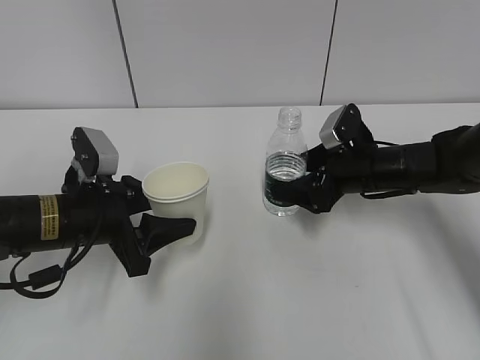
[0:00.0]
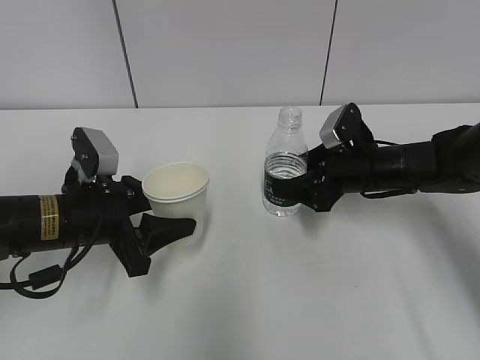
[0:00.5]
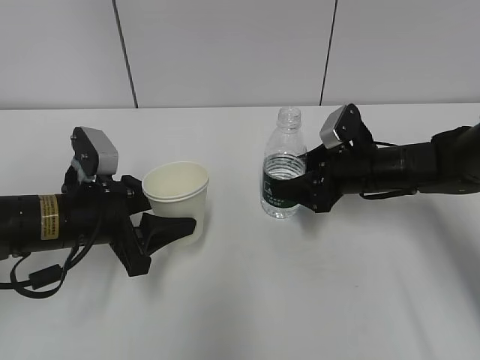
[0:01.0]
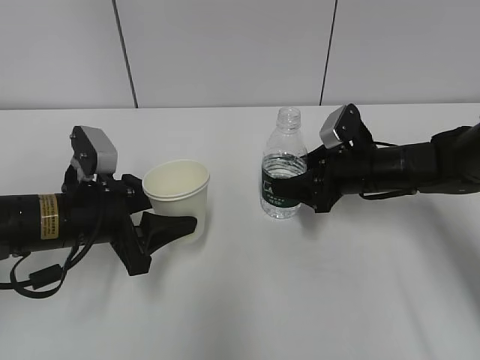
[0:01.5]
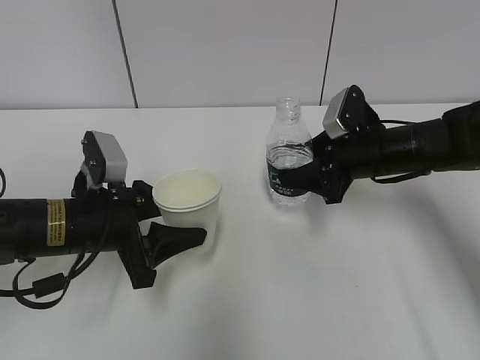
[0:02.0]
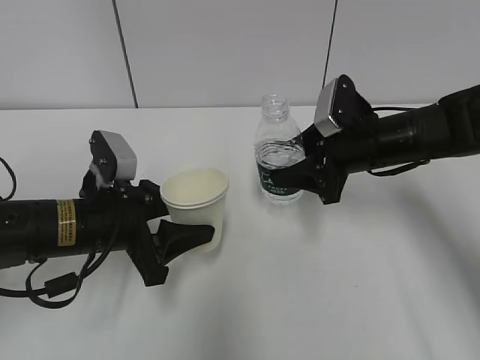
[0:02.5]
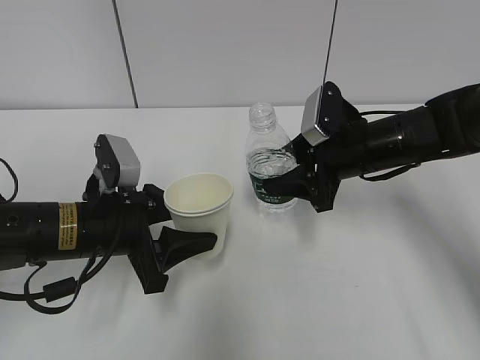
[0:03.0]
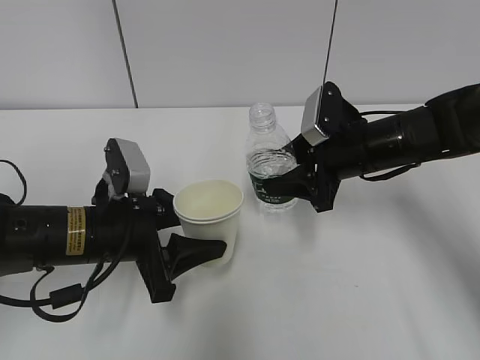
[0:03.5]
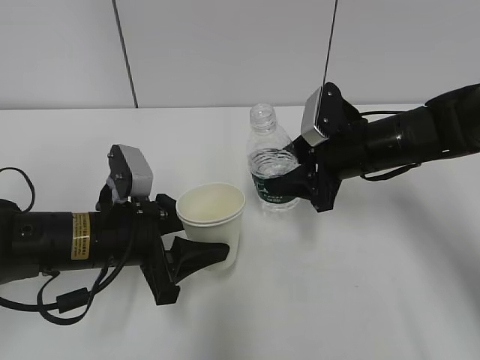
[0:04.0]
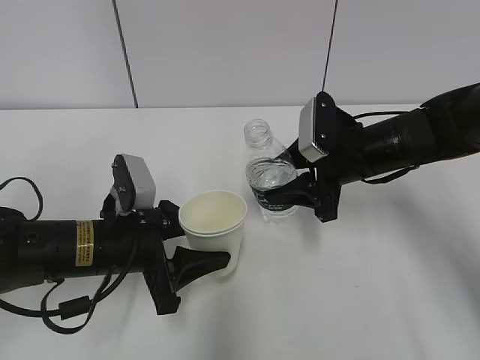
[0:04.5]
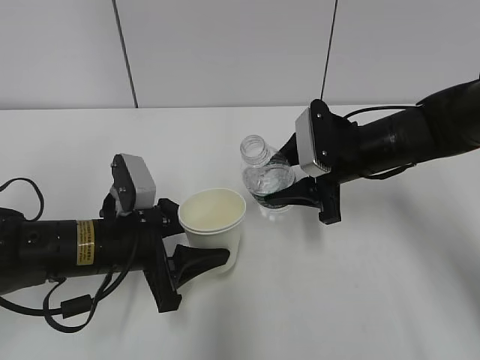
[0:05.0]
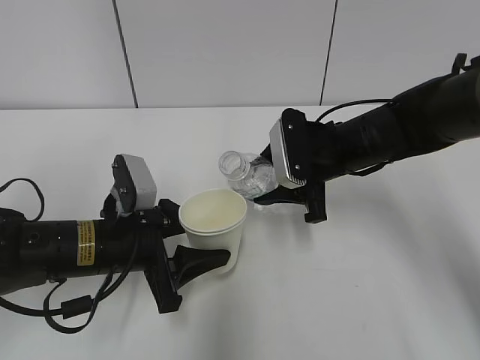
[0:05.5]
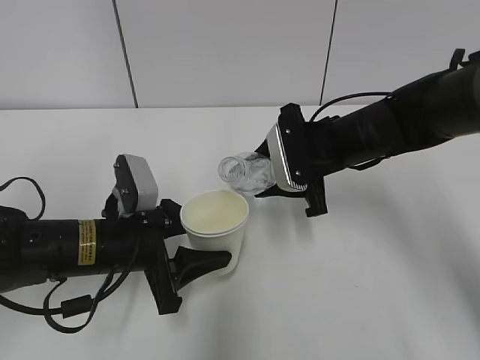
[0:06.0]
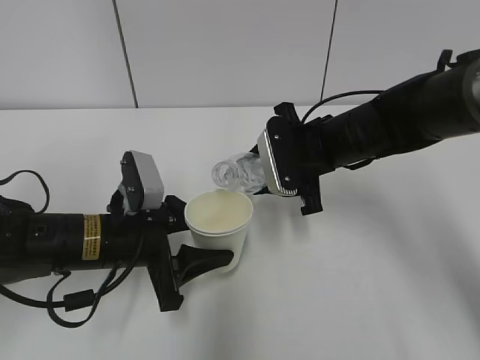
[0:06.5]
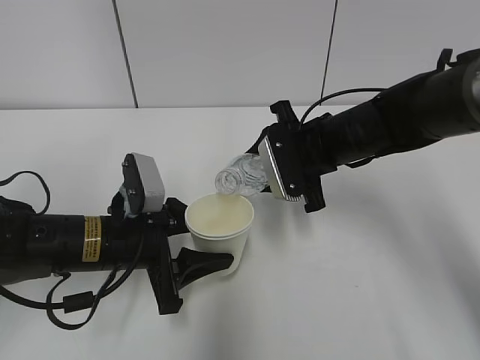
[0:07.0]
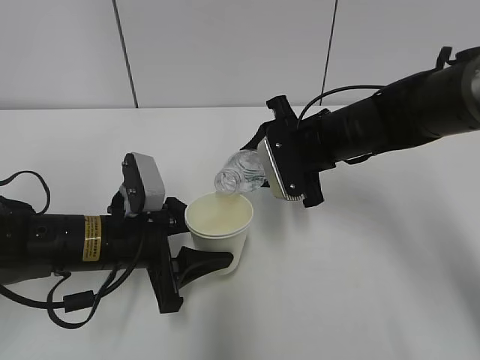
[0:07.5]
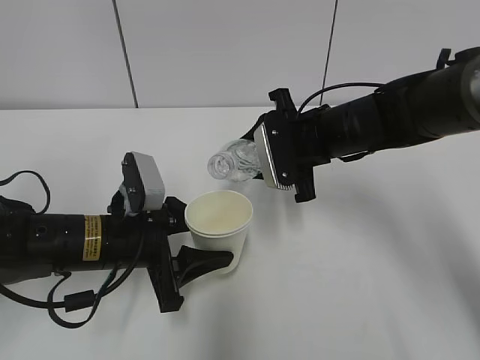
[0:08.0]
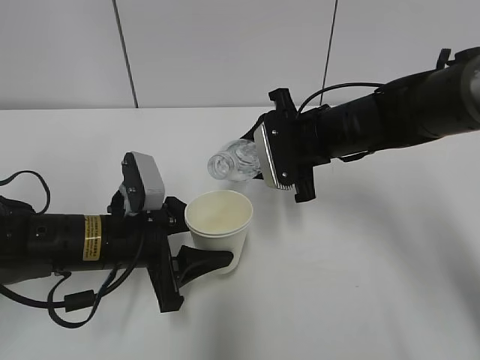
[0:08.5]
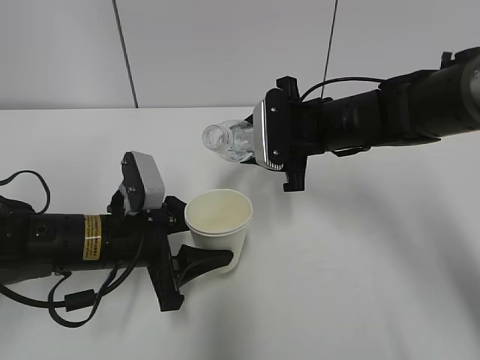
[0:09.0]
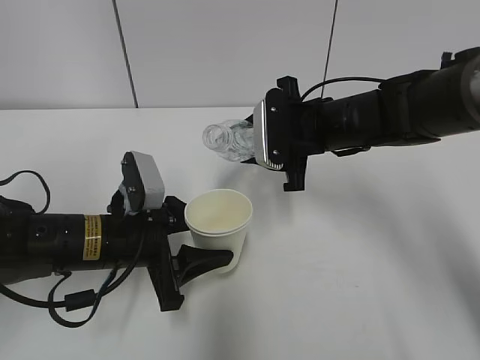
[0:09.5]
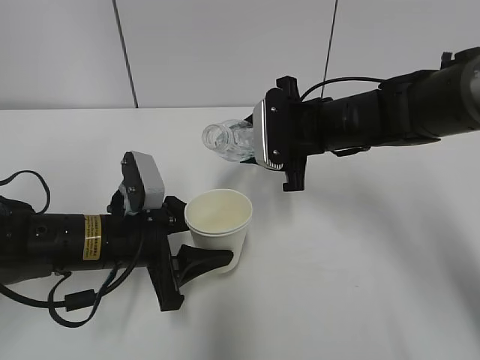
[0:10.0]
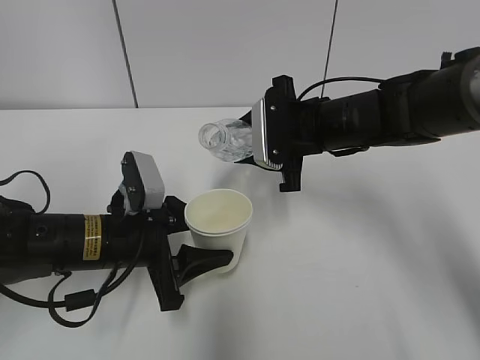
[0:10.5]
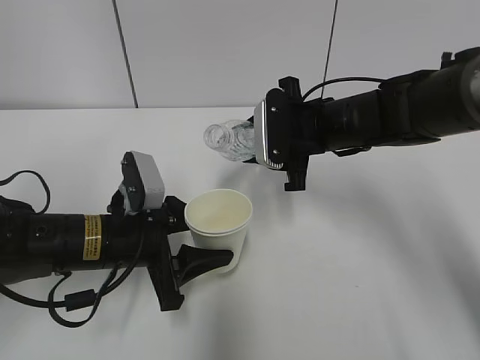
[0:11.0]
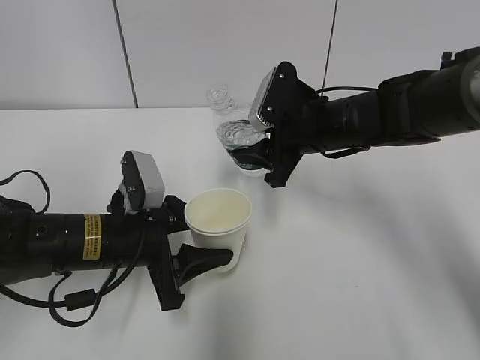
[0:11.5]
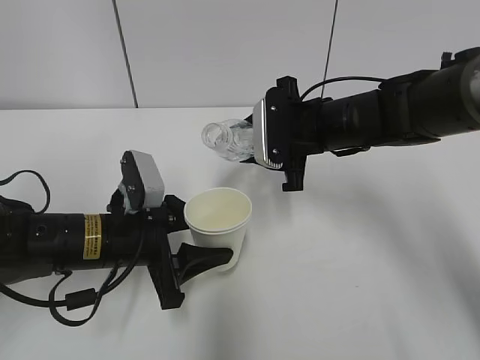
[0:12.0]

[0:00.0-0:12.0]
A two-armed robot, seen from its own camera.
0:00.0 to 0:02.0: The right gripper closes.
0:02.0 to 0:04.0: The grippers move only a little.
0:06.0 to 0:10.0: The grippers make only small movements.

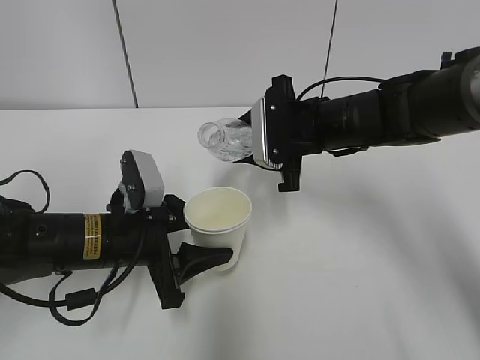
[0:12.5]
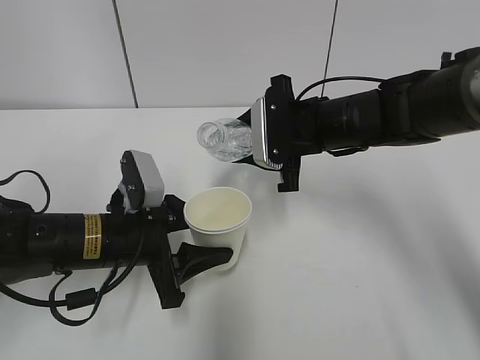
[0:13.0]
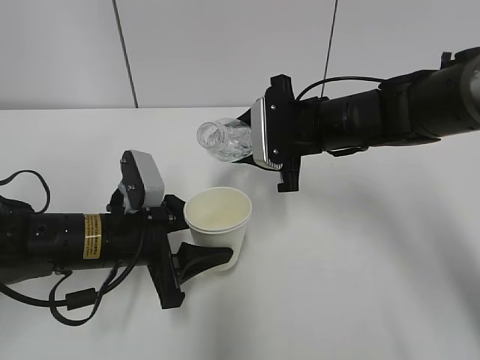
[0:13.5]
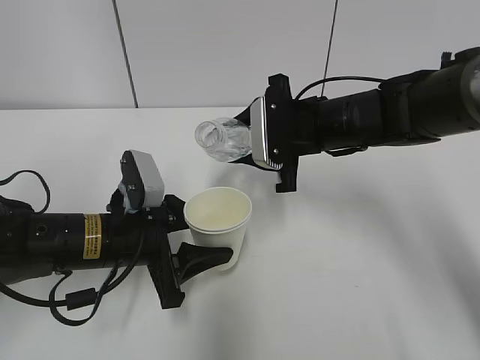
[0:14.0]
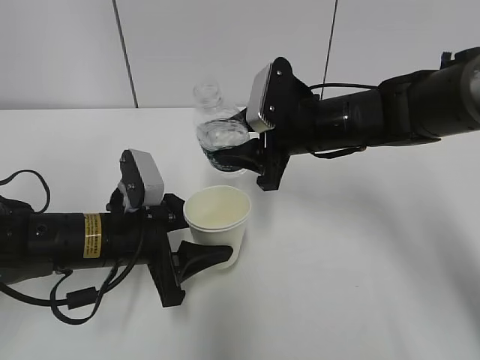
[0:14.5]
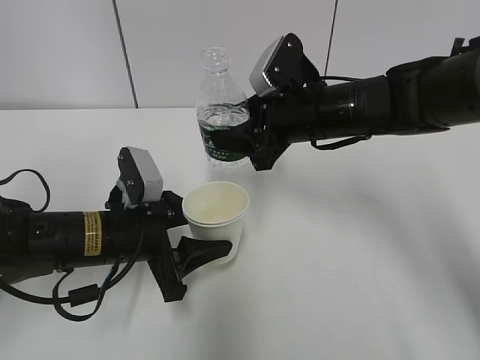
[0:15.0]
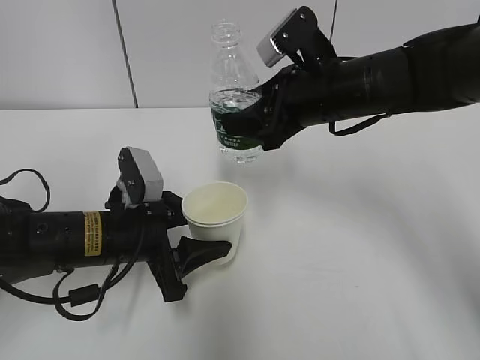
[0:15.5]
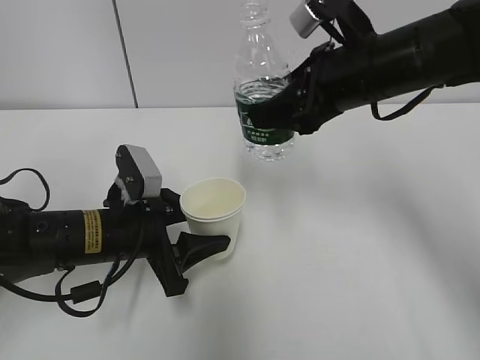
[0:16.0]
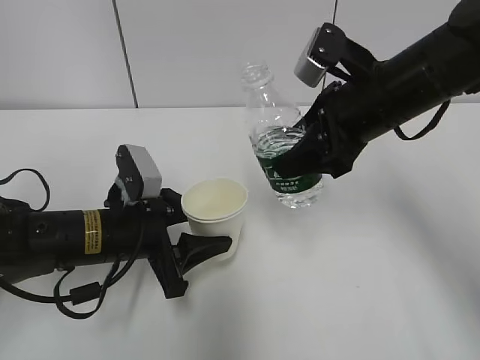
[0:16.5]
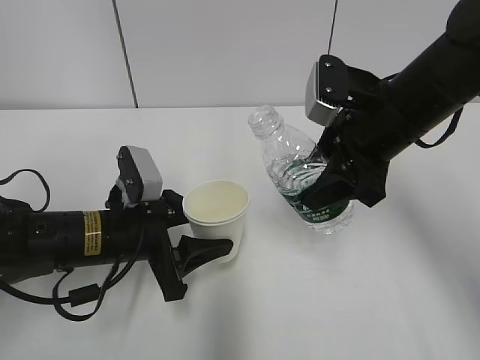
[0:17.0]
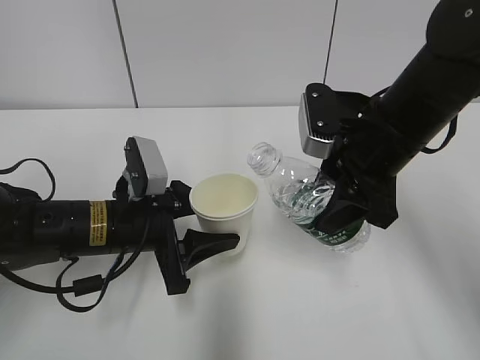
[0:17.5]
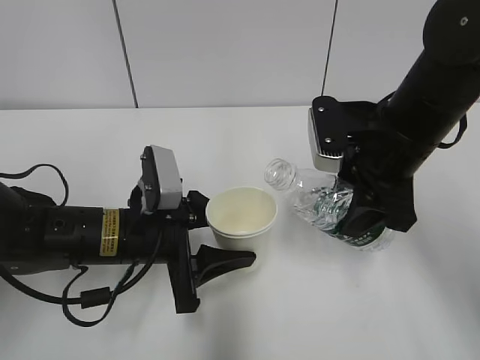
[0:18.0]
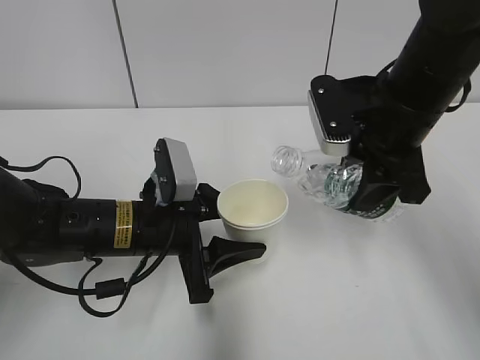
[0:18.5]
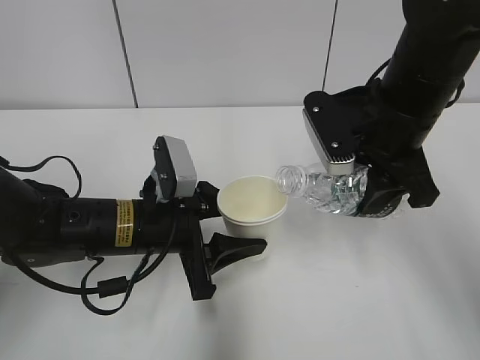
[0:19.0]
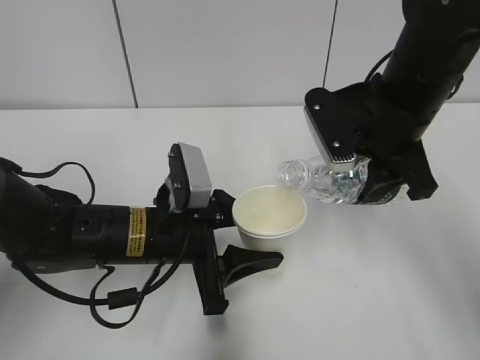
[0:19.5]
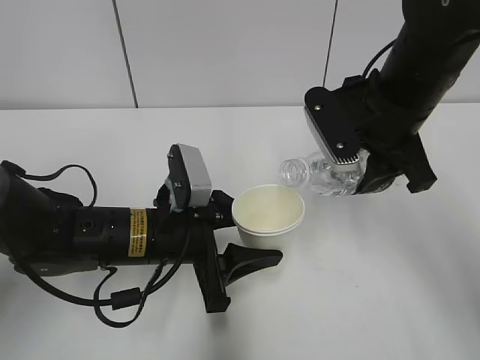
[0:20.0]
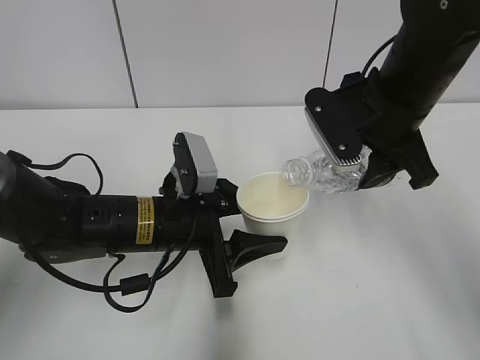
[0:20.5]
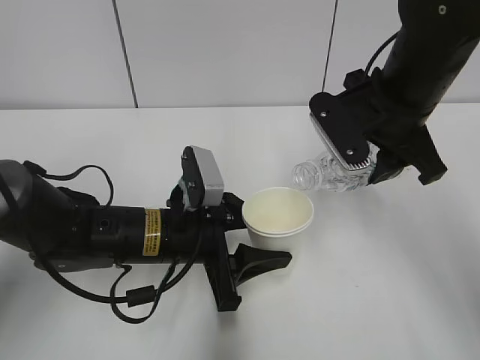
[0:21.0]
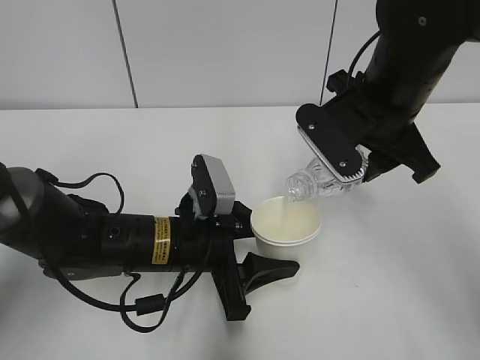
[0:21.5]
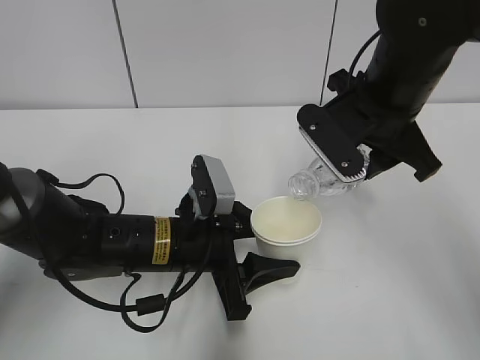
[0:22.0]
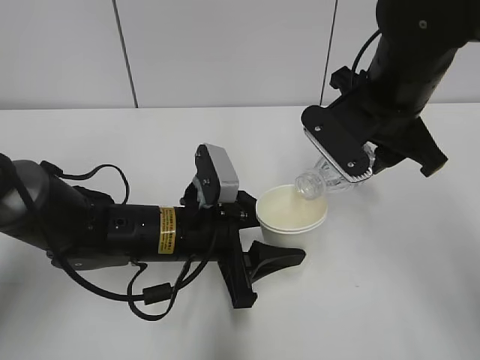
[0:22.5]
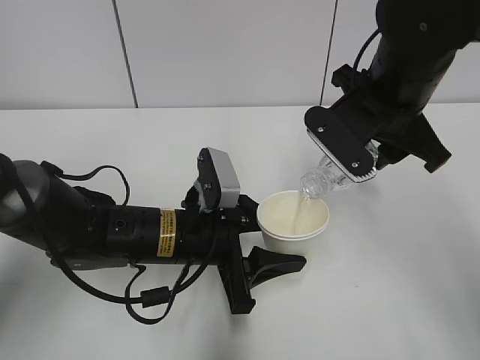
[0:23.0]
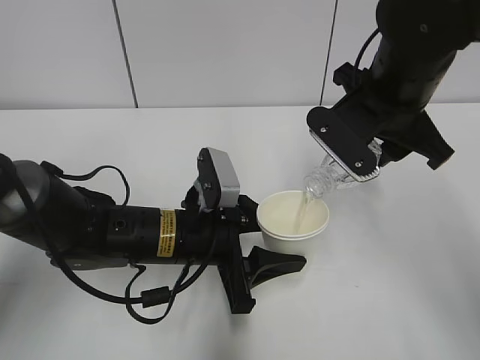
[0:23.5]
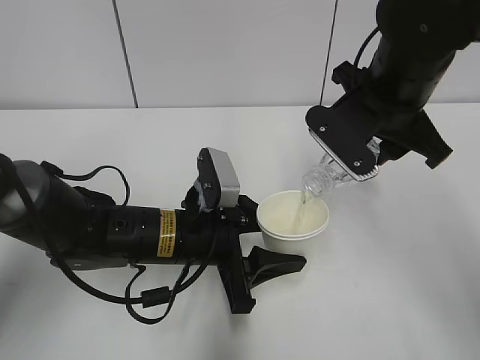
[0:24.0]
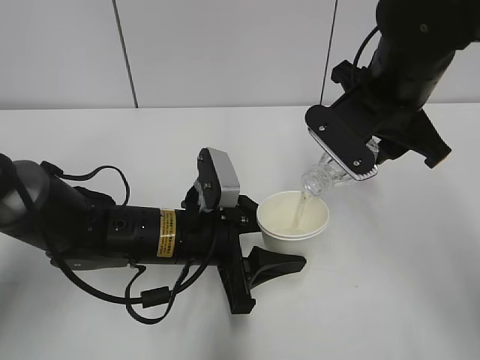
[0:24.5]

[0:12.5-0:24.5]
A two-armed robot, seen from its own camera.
Step, 0:15.0 to 0:22.0: Fill water with the left hand.
Step, 0:15.0 to 0:22.0: Pour water with the right hand.
Step, 0:22.5 to 0:23.5: Collect water with the right hand.
0:14.5 to 0:16.5: The right gripper heads upward, covering approximately 5 cm.
0:20.5 to 0:22.5: The grippers make only small movements.
0:22.5 to 0:24.5: Both grippers stay put.

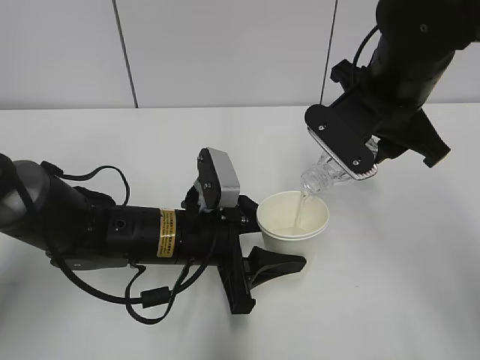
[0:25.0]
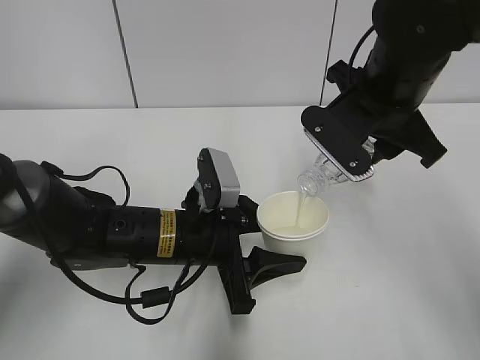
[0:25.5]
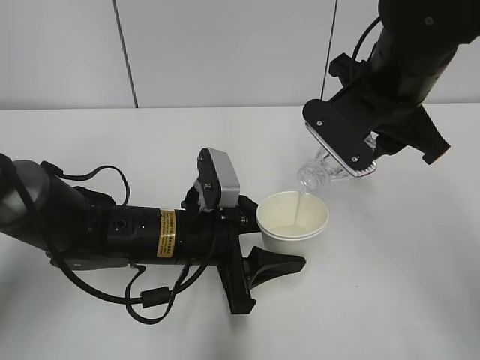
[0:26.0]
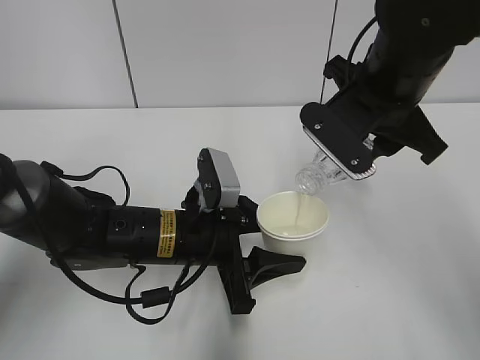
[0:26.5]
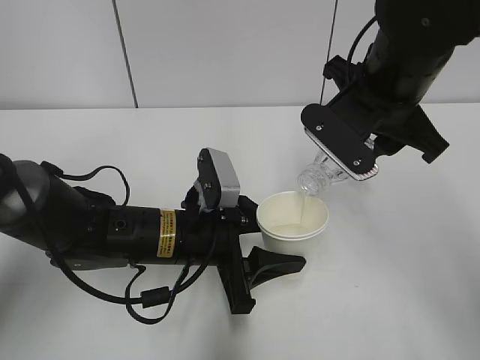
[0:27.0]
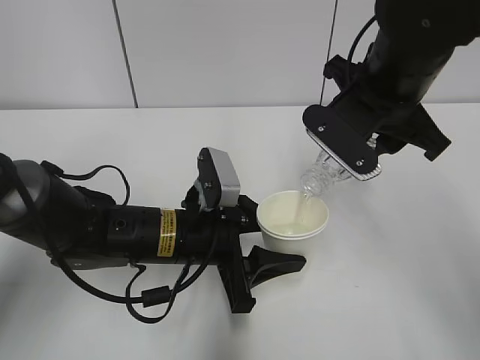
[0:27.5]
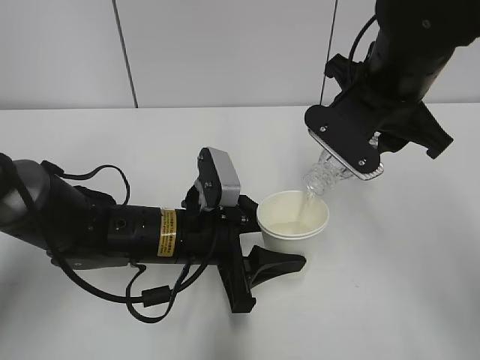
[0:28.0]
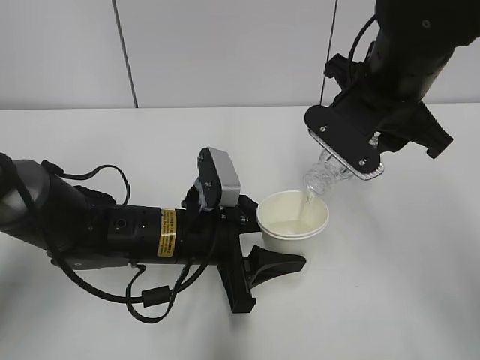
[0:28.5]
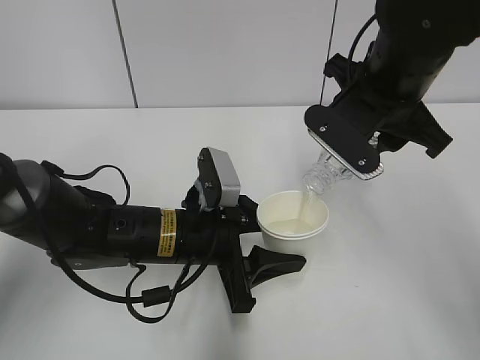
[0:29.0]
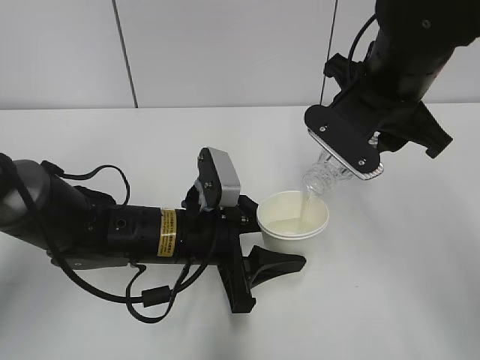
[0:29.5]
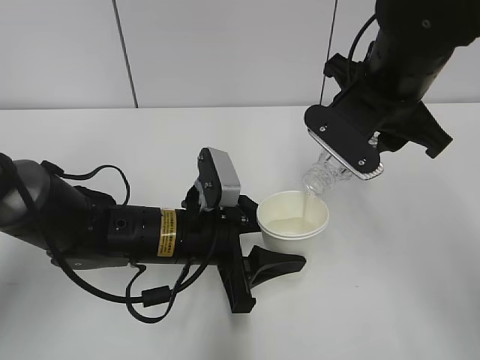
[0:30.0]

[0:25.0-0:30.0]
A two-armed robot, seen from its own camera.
0:25.0 to 0:27.5: Neither gripper changes place.
0:27.5 to 0:30.0: The two grippers keep their place.
